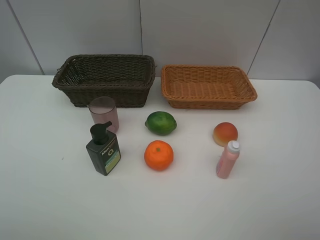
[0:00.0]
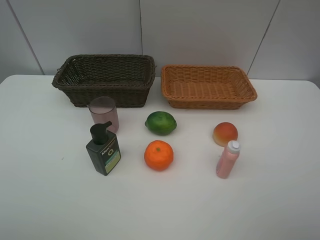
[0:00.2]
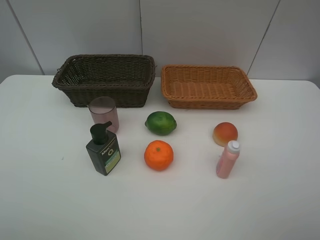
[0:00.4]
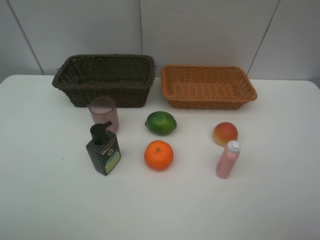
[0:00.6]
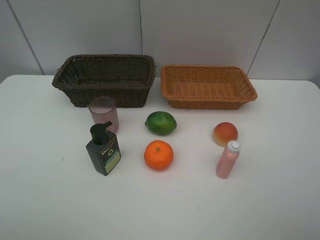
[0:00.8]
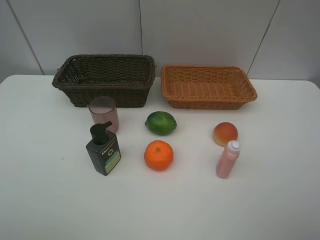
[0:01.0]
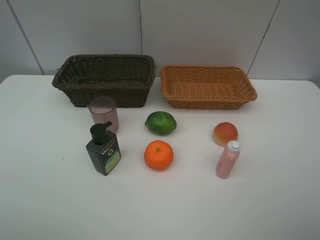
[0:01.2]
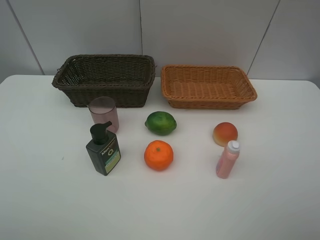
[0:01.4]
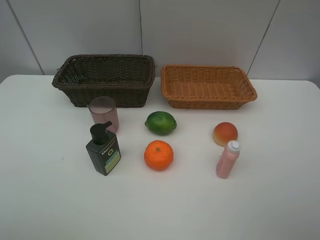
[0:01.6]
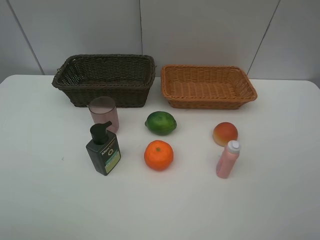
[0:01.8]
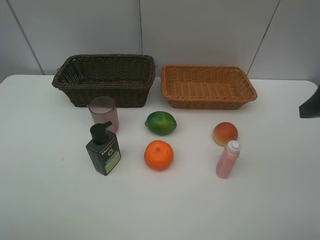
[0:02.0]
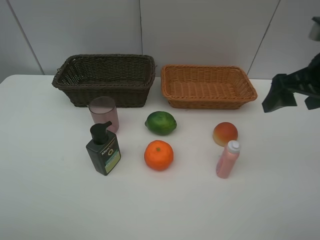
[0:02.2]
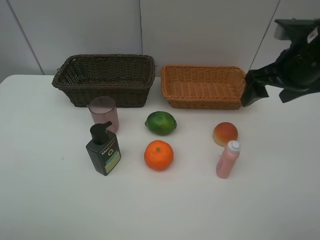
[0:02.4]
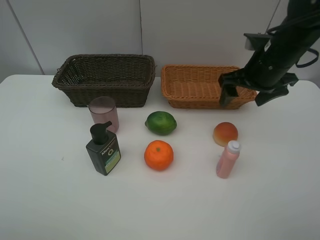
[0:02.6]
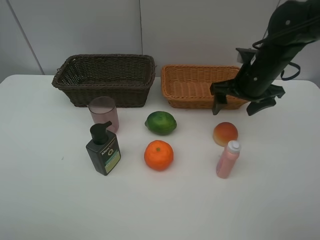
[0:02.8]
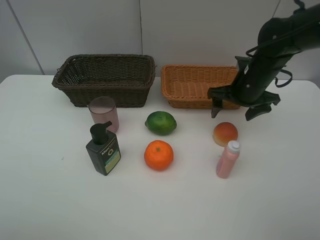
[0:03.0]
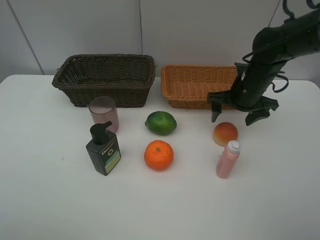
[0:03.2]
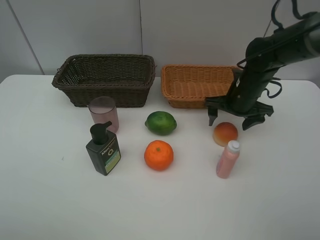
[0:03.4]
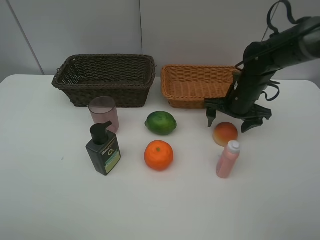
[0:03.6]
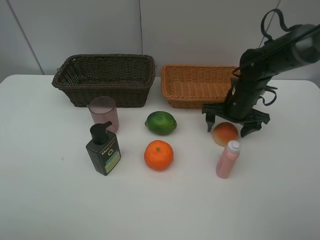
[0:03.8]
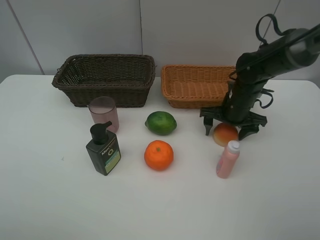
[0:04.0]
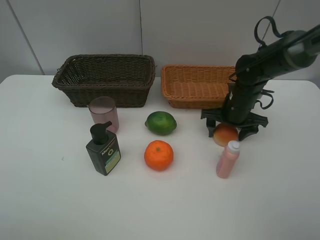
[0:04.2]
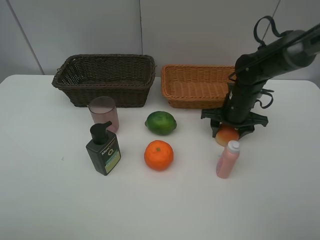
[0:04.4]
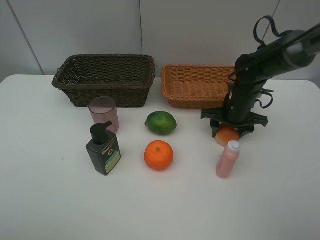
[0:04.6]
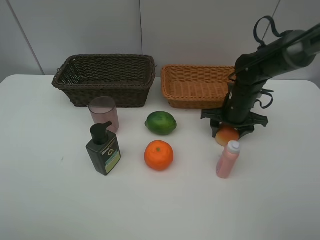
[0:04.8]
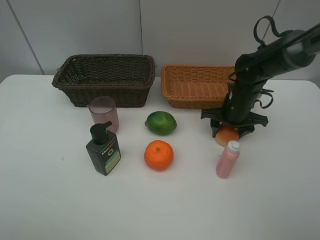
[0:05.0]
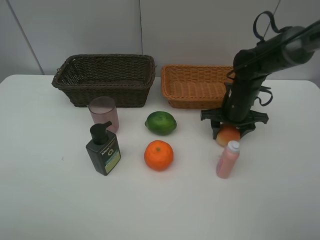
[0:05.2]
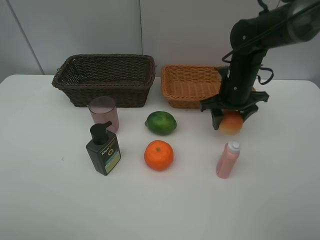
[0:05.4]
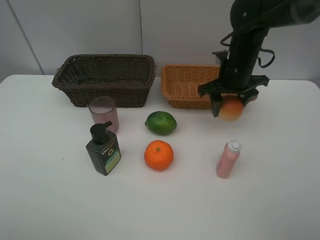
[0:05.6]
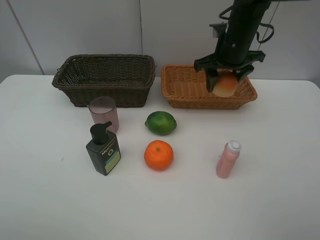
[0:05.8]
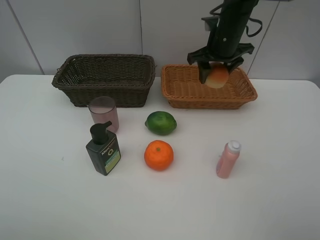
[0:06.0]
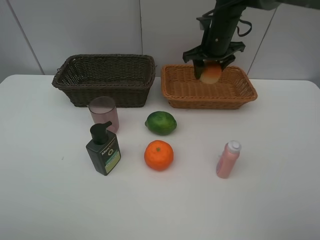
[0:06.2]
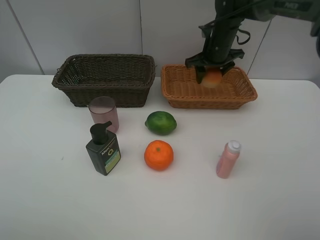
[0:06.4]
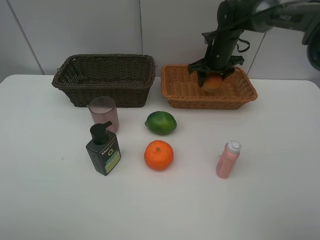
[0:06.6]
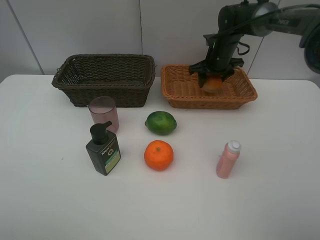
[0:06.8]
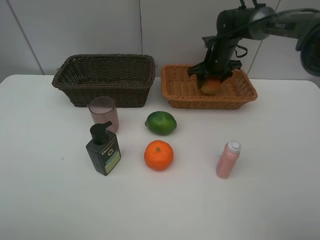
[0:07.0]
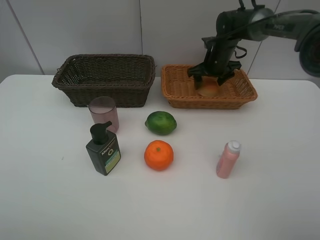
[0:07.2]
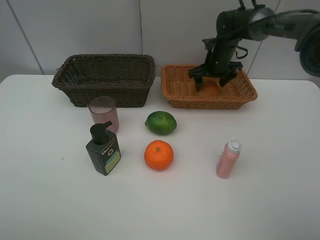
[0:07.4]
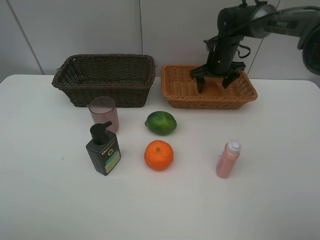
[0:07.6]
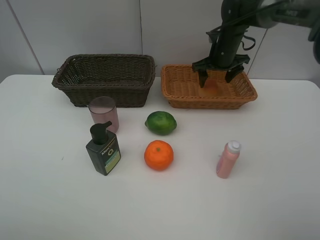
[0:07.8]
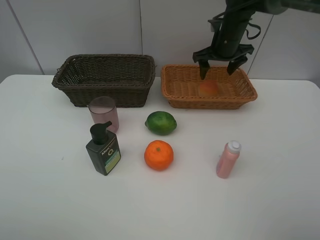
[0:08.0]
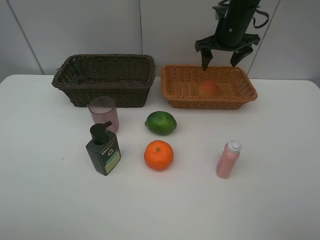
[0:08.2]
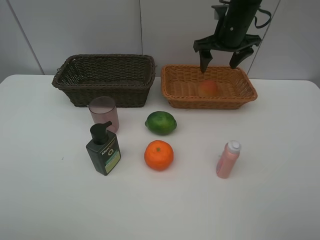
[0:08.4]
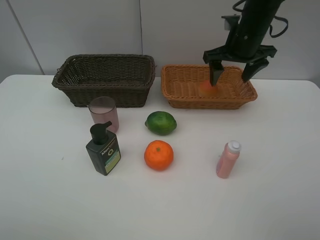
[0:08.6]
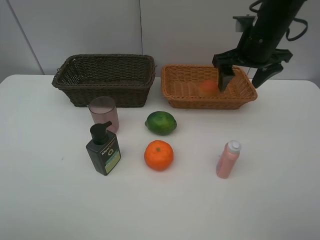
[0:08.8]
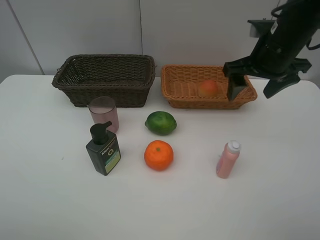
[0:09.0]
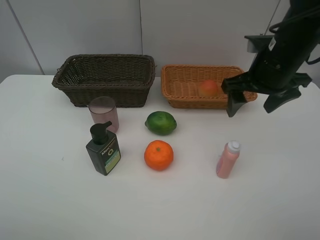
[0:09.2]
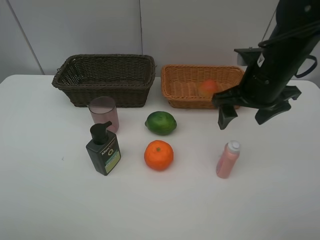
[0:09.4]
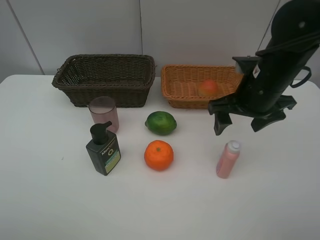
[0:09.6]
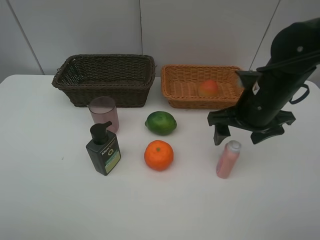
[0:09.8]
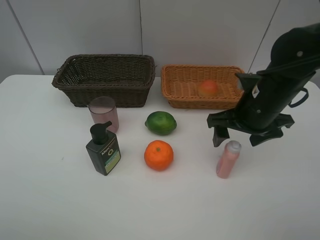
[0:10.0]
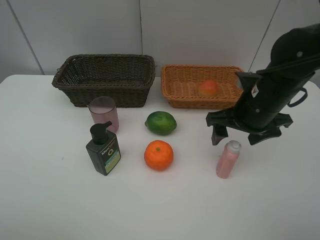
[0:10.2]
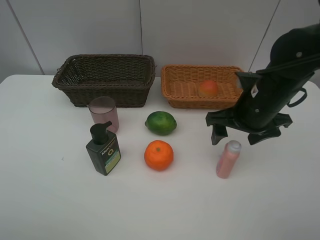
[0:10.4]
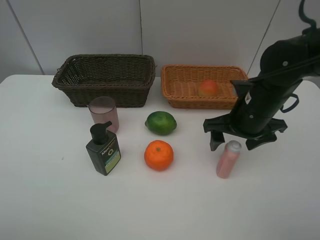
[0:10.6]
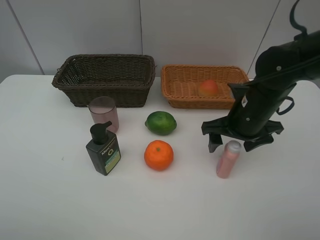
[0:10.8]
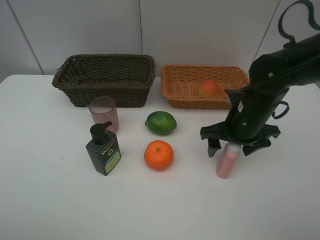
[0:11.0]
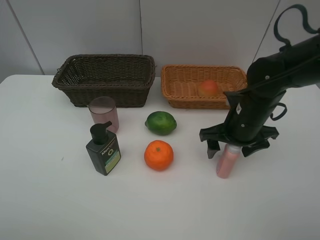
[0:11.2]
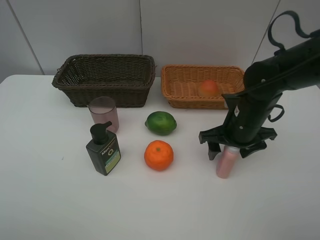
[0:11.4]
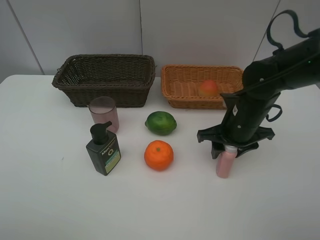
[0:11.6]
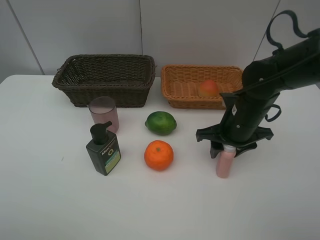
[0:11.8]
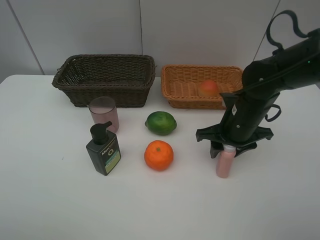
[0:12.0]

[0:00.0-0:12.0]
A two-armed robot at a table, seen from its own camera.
Task of the whole recording: place multiple objects separately in different baskets.
0:01.6 to 0:03.0: The right gripper heads forward and downward, covering approximately 30 cm.
0:03.0 to 0:04.4: The right gripper moves downward, approximately 5 cm, and closes its fingers.
0:04.4 to 0:06.0: The right gripper moves upward and forward, about 15 cm.
0:06.0 to 0:07.6: The right gripper moves downward and forward, approximately 10 cm.
0:07.6 to 0:09.0: The right gripper goes approximately 20 cm backward and upward.
0:09.0 to 0:10.4: The right gripper is displaced downward by some 10 cm.
0:10.4 to 0:12.0: The right gripper shifts some 5 cm downward, and closes its fingers.

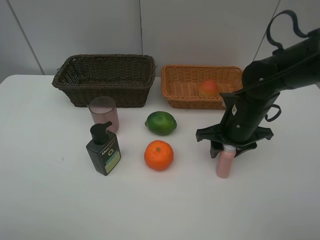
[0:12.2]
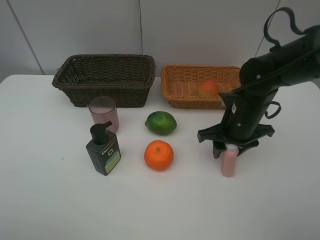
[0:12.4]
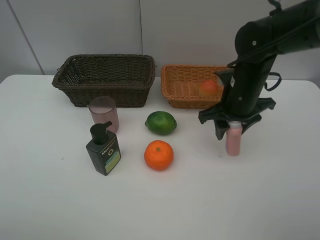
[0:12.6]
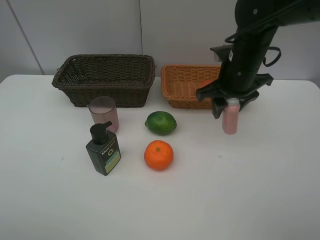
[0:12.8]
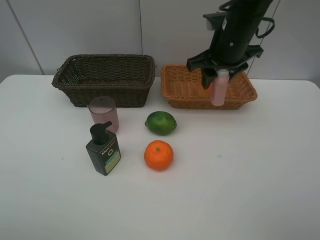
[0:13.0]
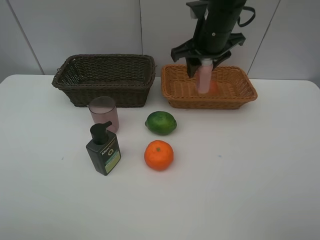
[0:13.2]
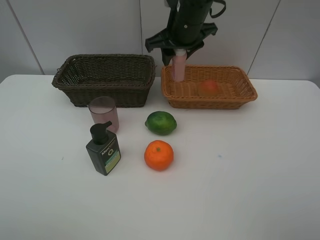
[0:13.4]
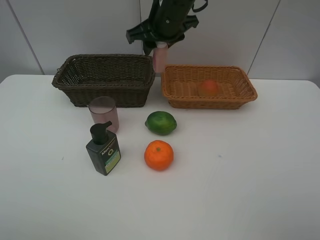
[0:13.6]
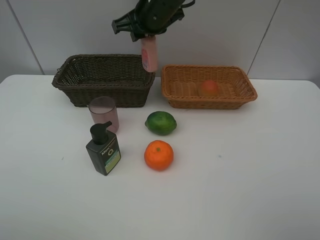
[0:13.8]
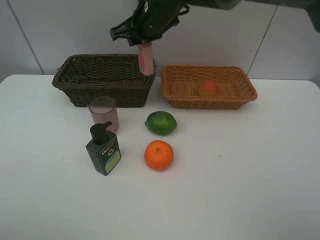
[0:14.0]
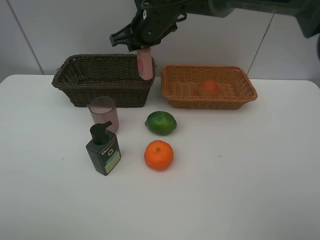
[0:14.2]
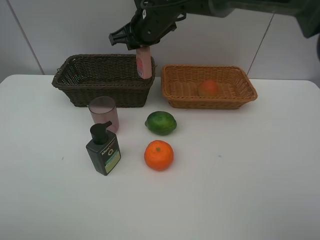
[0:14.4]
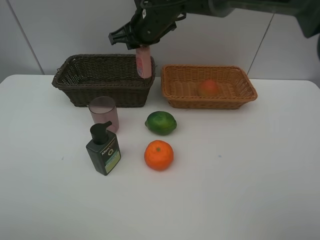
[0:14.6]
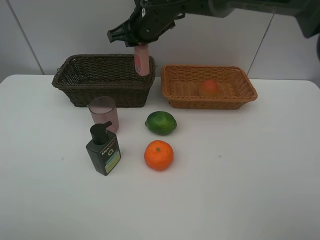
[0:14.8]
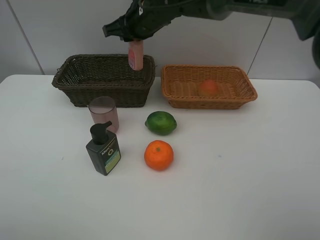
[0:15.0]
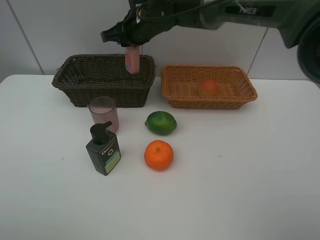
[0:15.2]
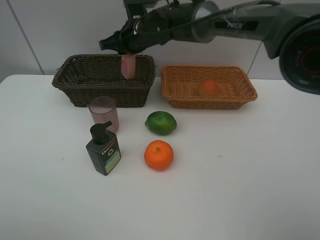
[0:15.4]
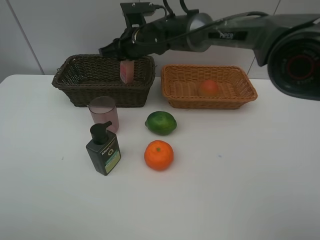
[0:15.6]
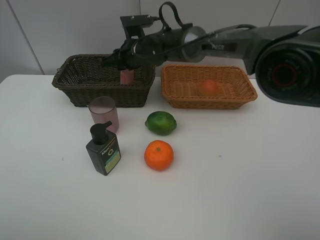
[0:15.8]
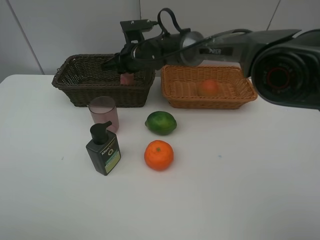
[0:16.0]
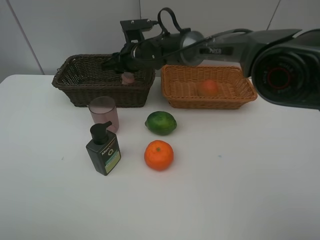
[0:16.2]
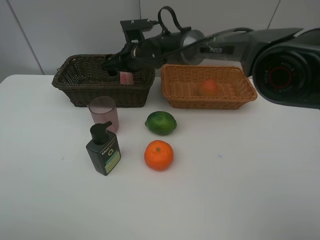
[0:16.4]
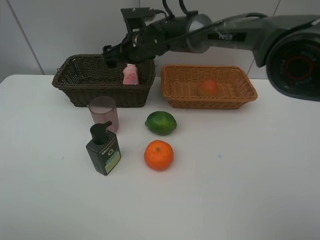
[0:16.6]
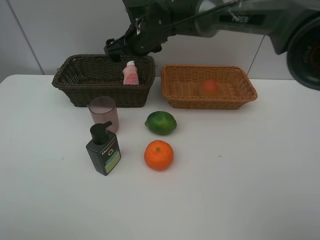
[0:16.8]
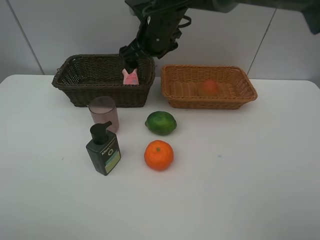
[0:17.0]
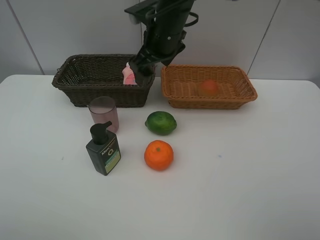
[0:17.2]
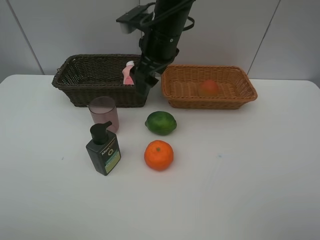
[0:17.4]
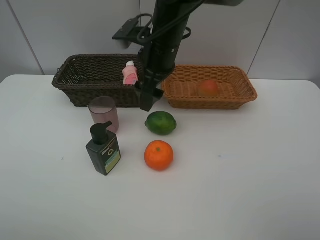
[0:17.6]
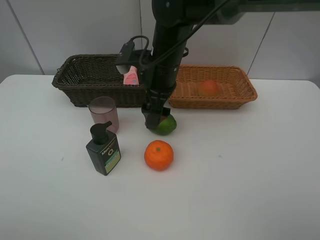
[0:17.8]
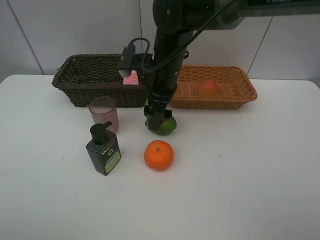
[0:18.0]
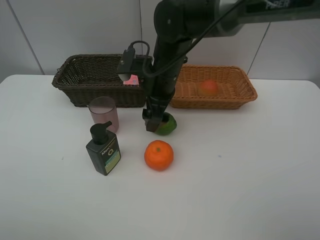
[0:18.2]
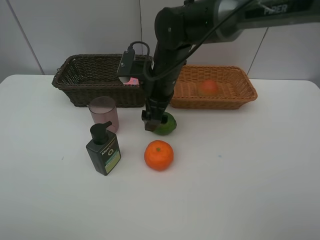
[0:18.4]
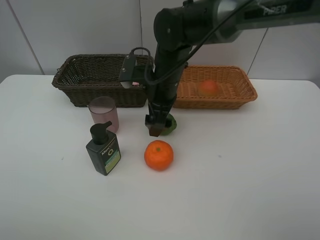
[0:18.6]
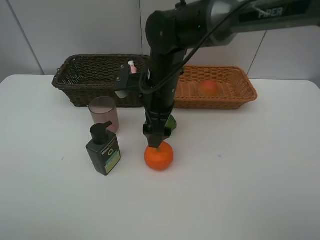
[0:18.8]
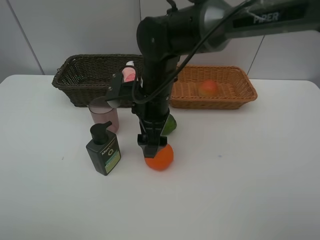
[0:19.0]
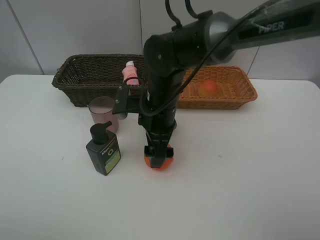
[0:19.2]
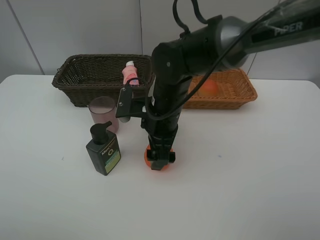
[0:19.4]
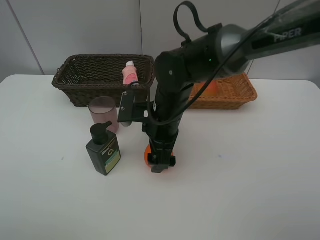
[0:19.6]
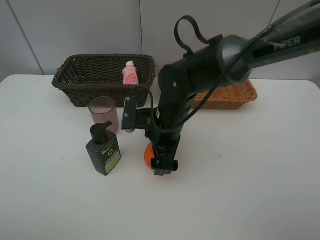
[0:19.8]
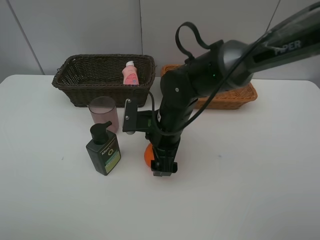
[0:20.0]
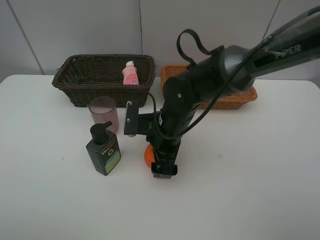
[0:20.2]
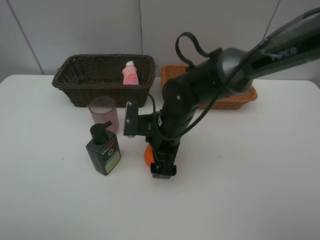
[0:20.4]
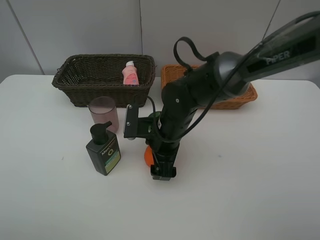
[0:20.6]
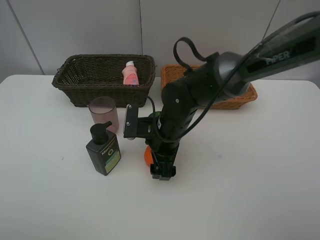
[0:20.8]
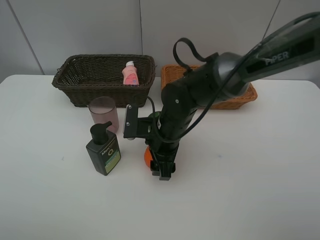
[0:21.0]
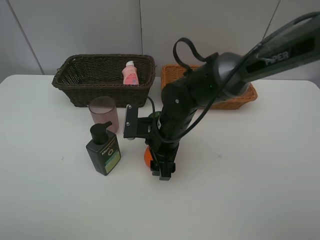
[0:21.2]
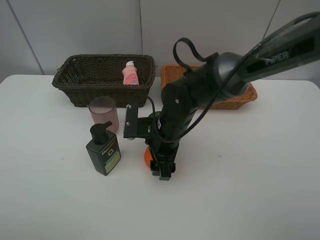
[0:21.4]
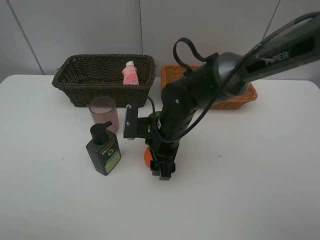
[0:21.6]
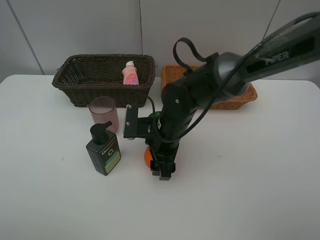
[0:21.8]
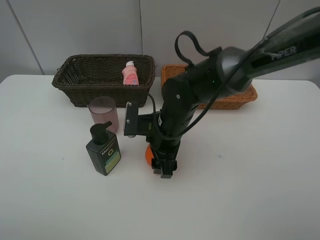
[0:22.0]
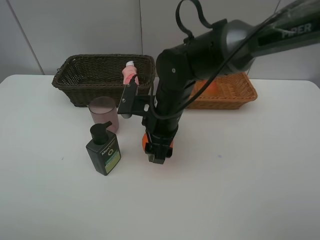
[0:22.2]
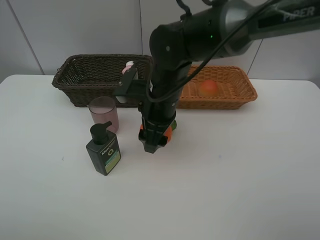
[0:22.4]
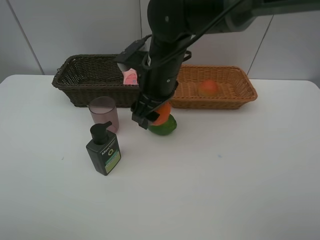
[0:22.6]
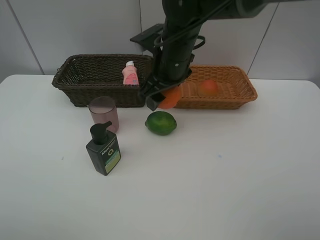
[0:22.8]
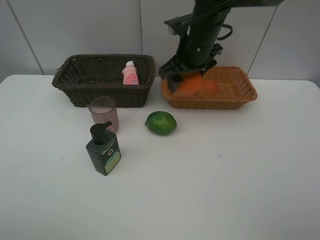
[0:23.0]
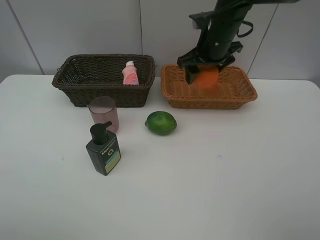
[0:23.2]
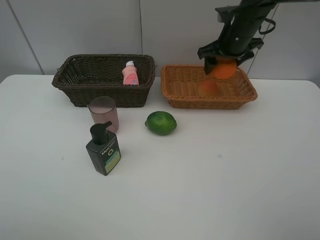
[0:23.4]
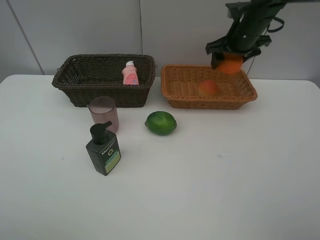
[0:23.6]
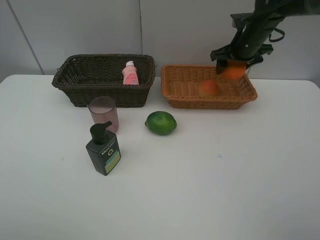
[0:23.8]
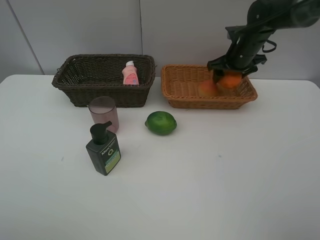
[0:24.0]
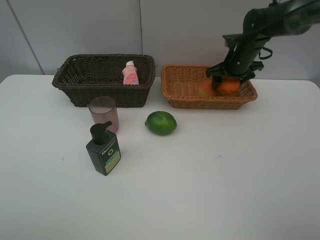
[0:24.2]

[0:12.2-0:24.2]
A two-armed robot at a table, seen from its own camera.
Task of the whole recording: place multiple objects separately in different baskets.
0:12.2 to 0:13.8: The right gripper moves to the left, upward and forward, approximately 25 cm.
0:13.8 to 0:15.2: The right gripper moves some 5 cm.
0:15.2 to 0:16.6: The right gripper opens.
0:16.6 to 0:18.2: The right gripper moves backward, approximately 10 cm.
0:18.2 to 0:19.8: The right gripper travels backward and downward by about 10 cm.
0:19.8 to 0:21.2: The grippers stay close to where they were, moving slightly.
0:21.2 to 0:22.6: The right gripper heads upward, covering approximately 10 cm.
0:22.6 to 0:24.2: The right gripper moves to the right and forward, approximately 25 cm.
